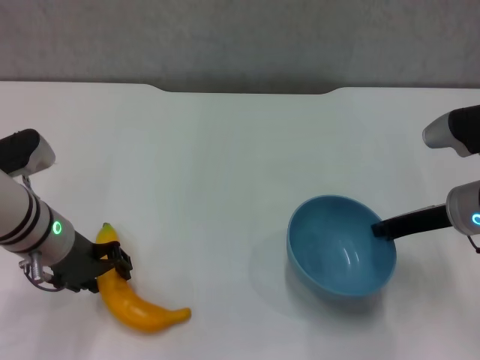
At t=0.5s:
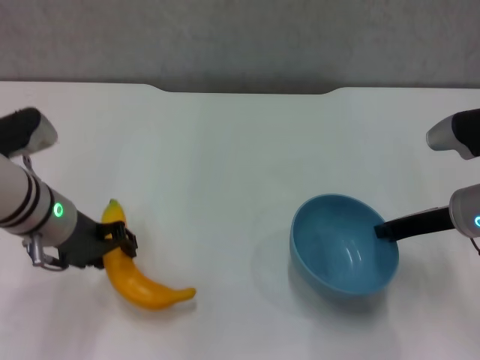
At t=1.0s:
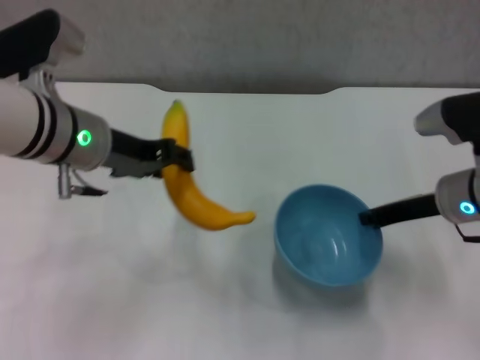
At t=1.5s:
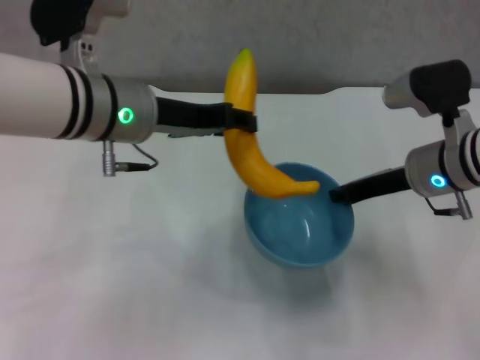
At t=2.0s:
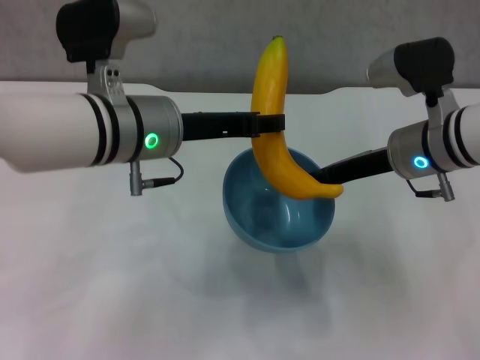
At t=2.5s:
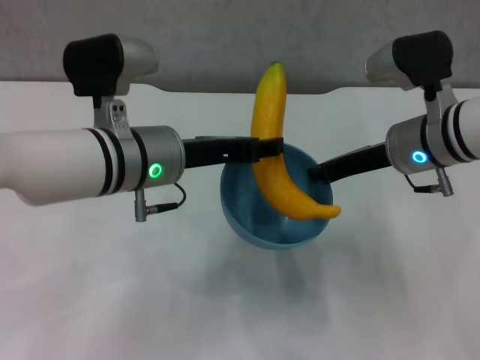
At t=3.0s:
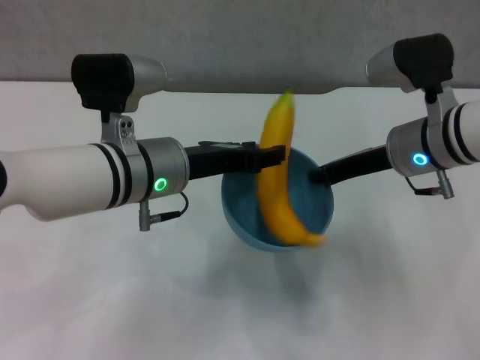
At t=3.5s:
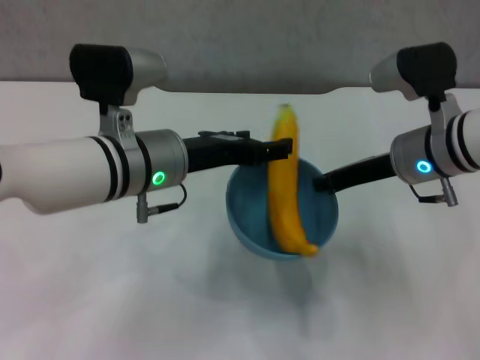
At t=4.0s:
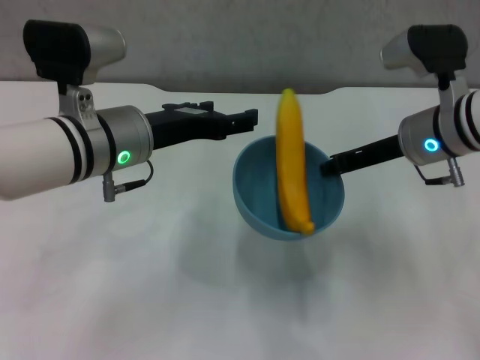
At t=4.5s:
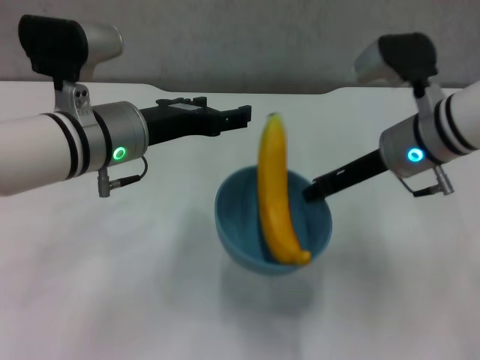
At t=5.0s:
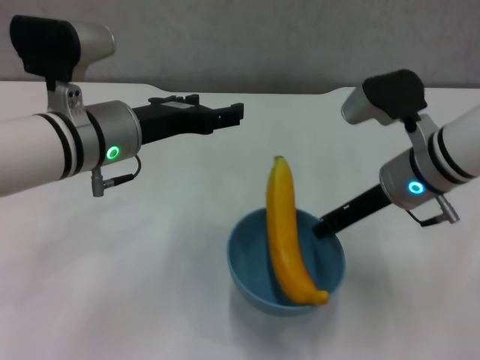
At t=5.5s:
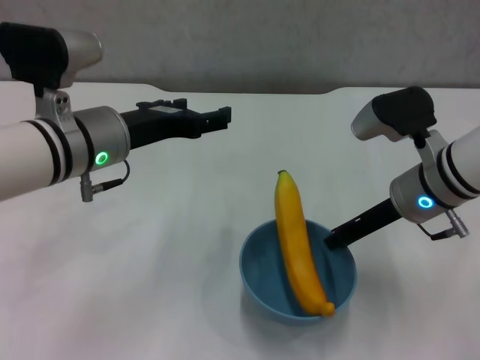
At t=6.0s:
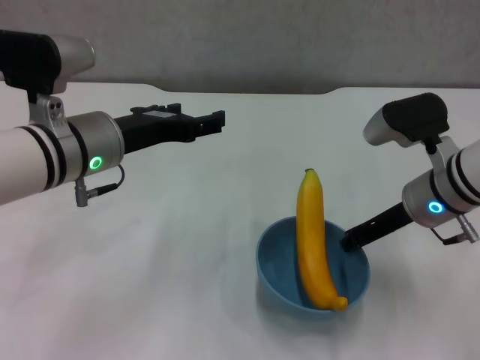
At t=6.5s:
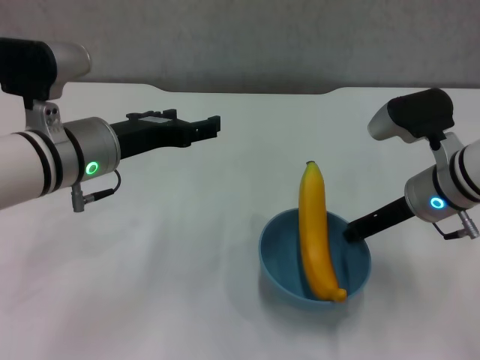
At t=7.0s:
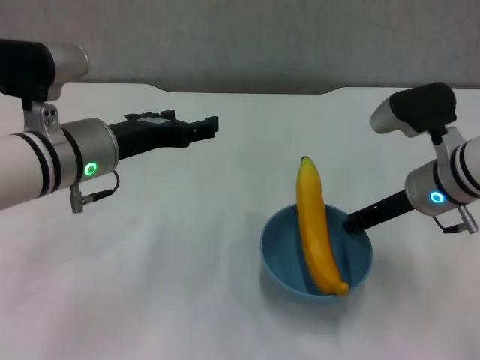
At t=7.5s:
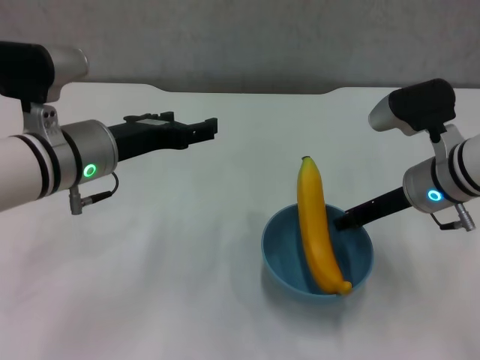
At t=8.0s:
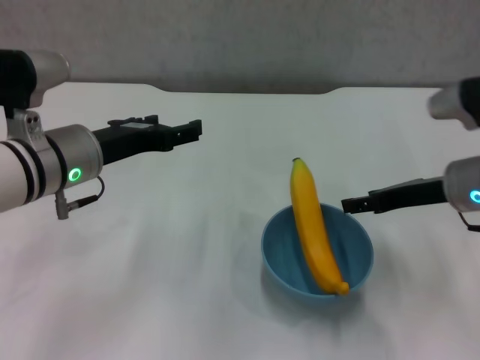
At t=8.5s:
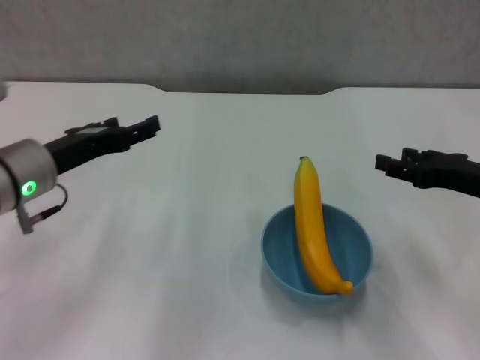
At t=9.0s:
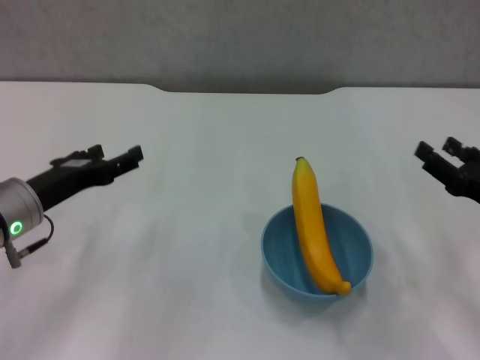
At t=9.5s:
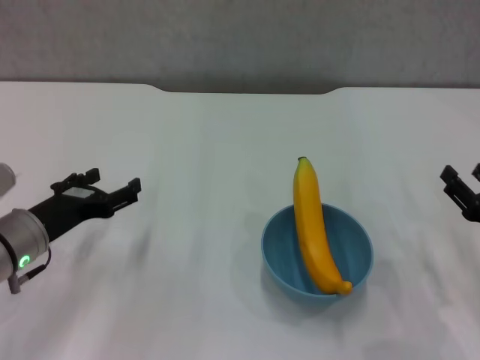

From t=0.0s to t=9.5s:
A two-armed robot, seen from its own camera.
Step, from t=0.0s to t=3.5s: Place the banana in the blue bowl with left gripper.
Step, from t=4.0s to t=7.5s: Place the bowl on the table with right gripper.
From t=0.0s to t=2.0s: The right gripper shifts approximately 5 cm to the left. The left gripper moves to the right and upward, some 15 cm.
From t=2.0s to t=4.0s: The left gripper opens up.
From t=7.5s to t=9.5s: The right gripper moves backward, to the right and downward, roughly 20 cm, and opens its fingers. Meanwhile the left gripper is displaced downward and to the left by roughly 15 cm.
